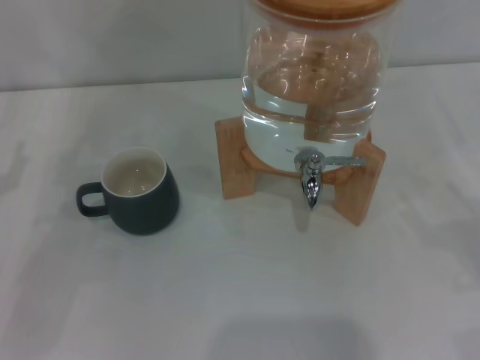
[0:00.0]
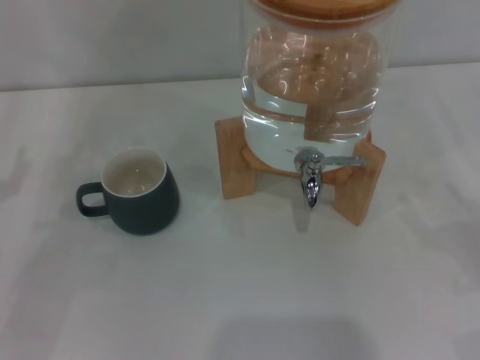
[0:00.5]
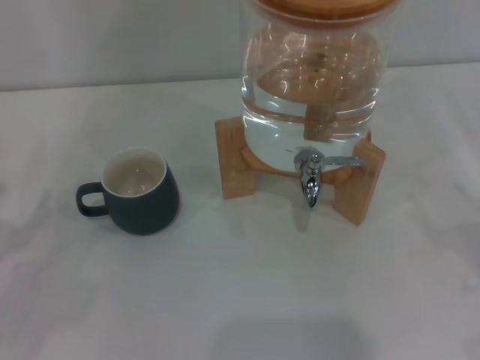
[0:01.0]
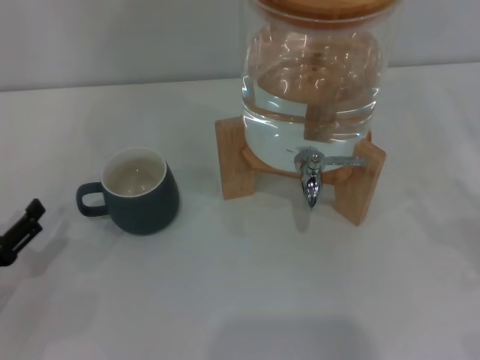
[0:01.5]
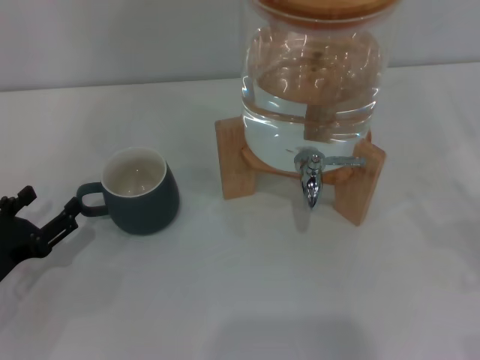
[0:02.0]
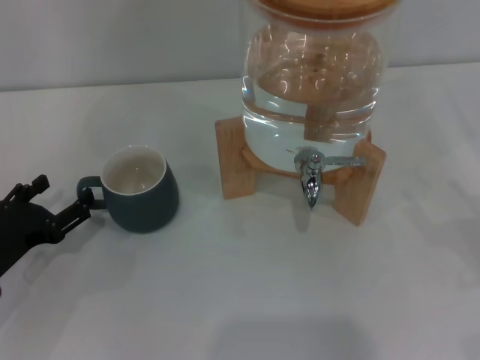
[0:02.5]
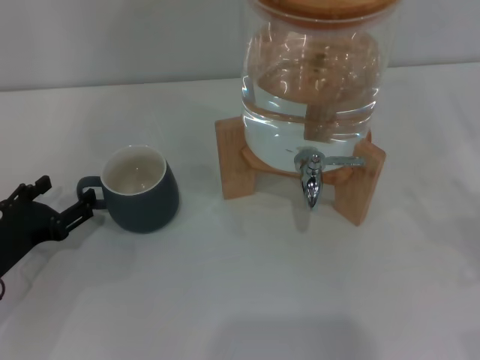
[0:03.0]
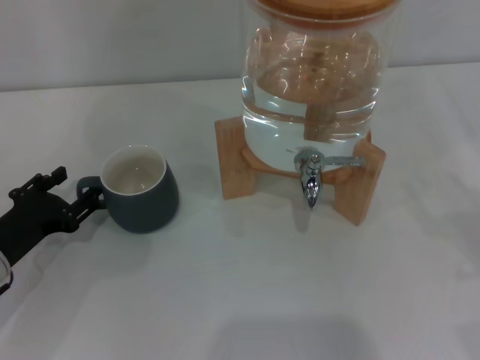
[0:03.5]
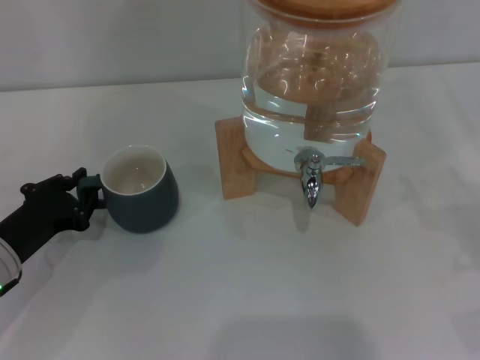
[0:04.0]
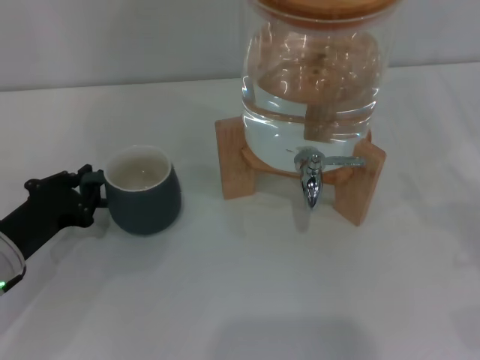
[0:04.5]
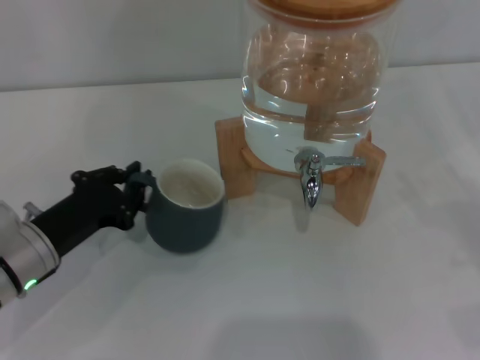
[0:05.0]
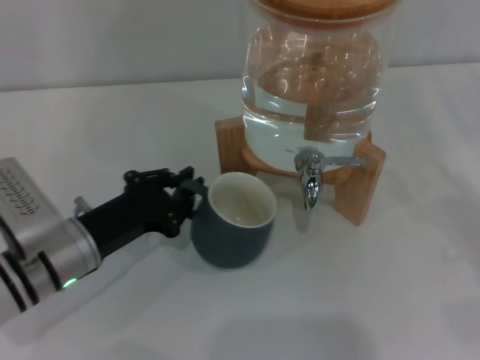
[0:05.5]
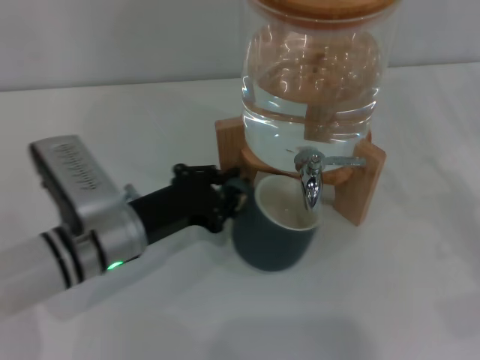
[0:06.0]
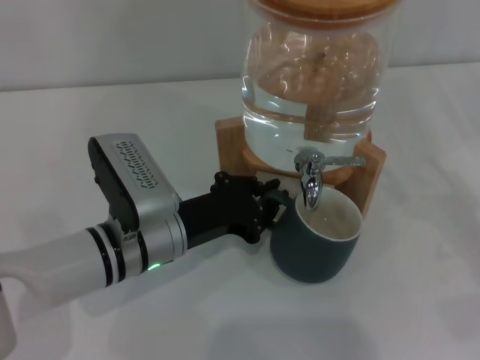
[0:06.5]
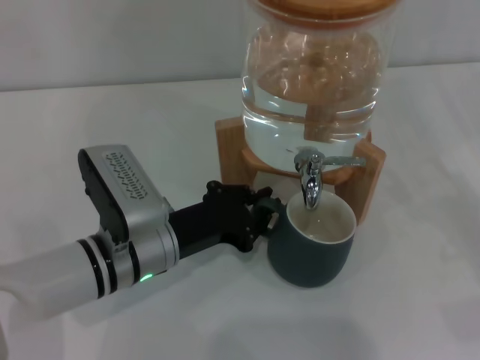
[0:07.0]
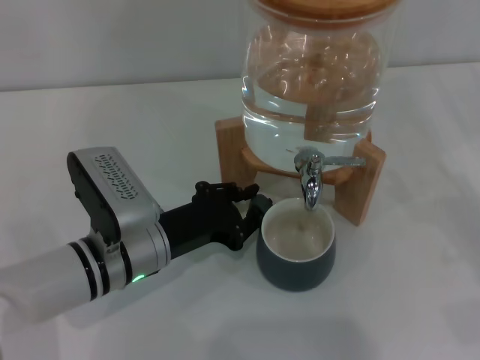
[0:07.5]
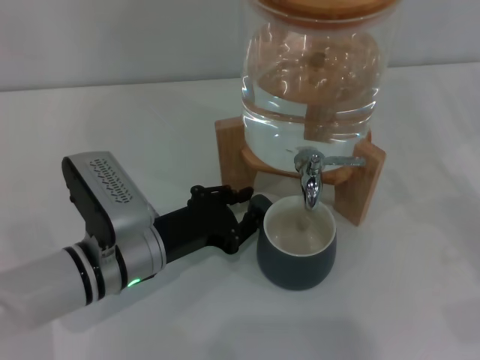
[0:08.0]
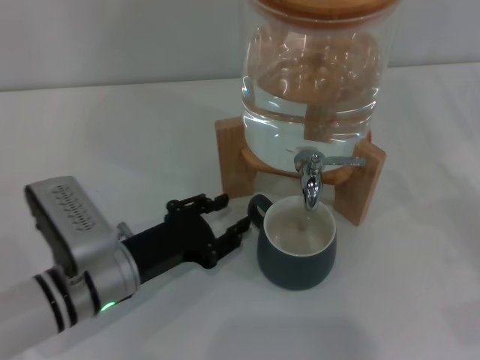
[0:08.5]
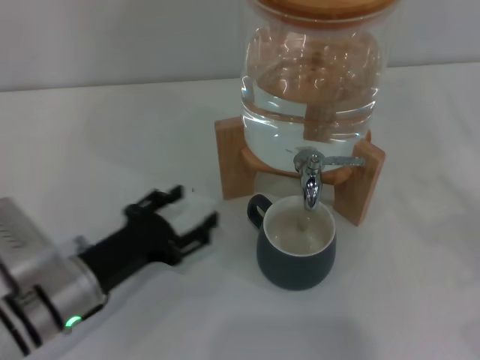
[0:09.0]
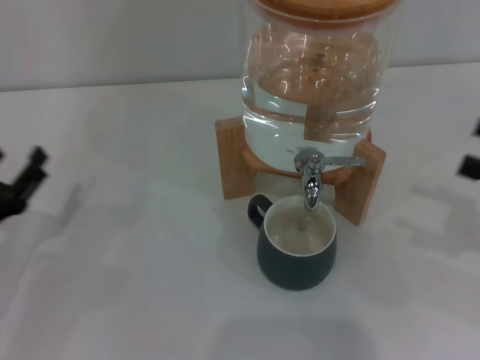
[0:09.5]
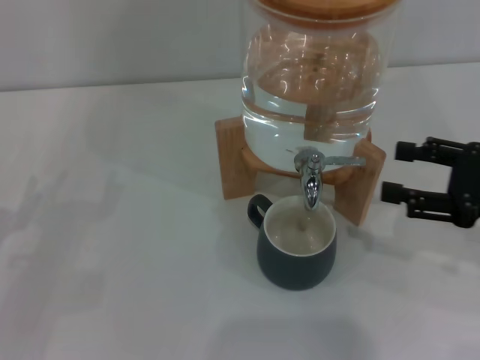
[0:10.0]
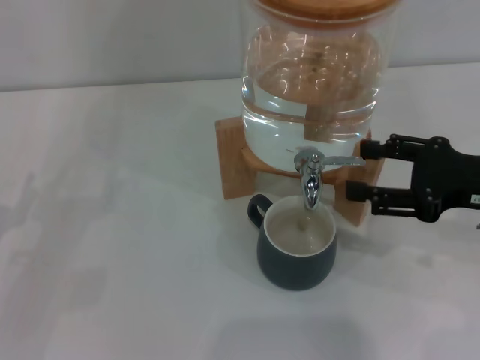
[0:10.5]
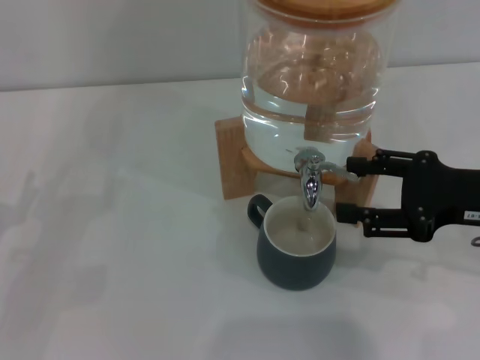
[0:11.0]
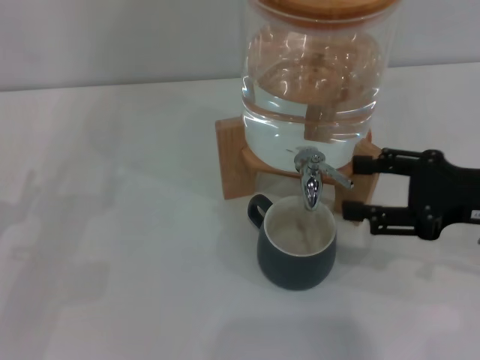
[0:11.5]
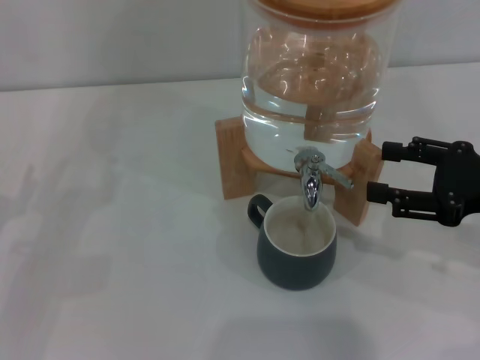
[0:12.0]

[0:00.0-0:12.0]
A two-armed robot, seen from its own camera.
Task of the whole recording: the left gripper pick up the black cup and place it horizontally under the faucet, the right gripper turn on the faucet to fill the cup, and then turn off the faucet.
Step, 0:00.0 to 0:08.5: Move the cup beneath the water dispenser nozzle with the left gripper.
Step, 0:09.0 to 0:11.0: Open the dispenser valve and fill the cup with water with the right gripper.
0:00.0 to 0:02.0: The left gripper is displaced downward by some 5 cm.
0:02.0 to 0:04.0: The left gripper shifts by approximately 5 cm, and closes its fingers.
0:04.0 to 0:06.0: The left gripper is displaced to the right by approximately 10 cm.
0:06.0 to 0:08.0: The grippers stay close to where they were, moving slightly.
0:08.0 to 0:10.0: The left gripper heads to the left, covering roughly 20 cm, and opens its fingers. Meanwhile the right gripper shifts roughly 10 cm to the left, upward and forward.
0:10.0 to 0:12.0: The grippers stay close to where they were, moving slightly.

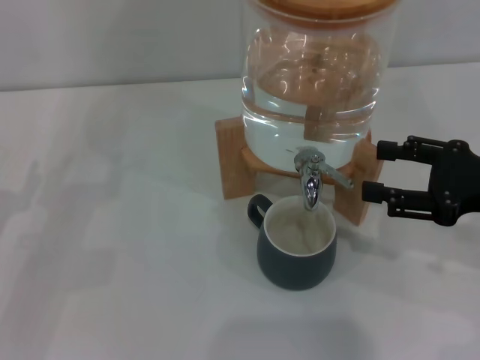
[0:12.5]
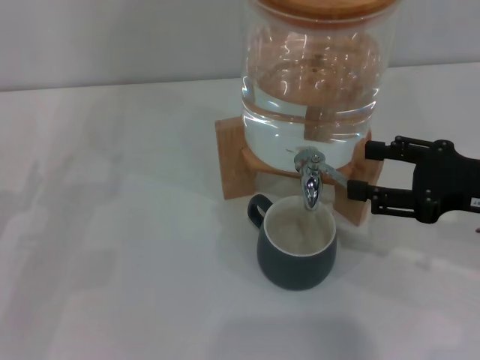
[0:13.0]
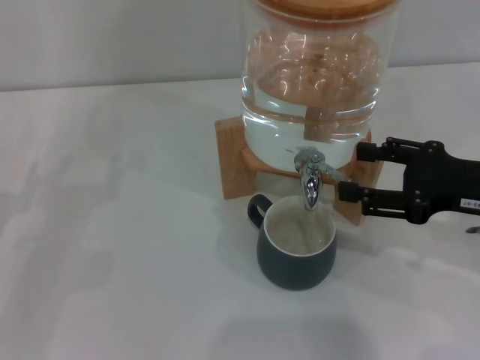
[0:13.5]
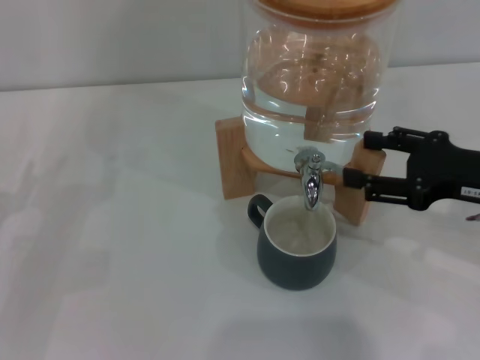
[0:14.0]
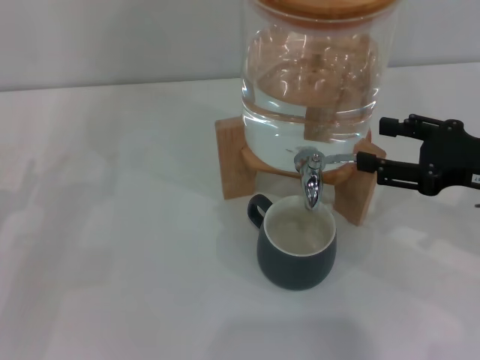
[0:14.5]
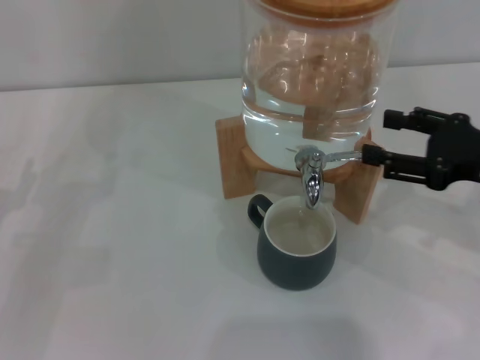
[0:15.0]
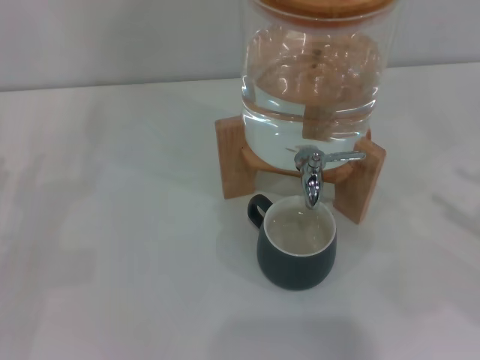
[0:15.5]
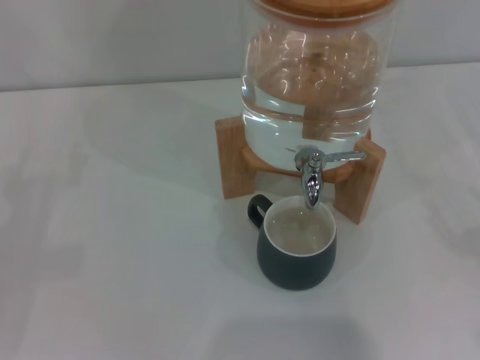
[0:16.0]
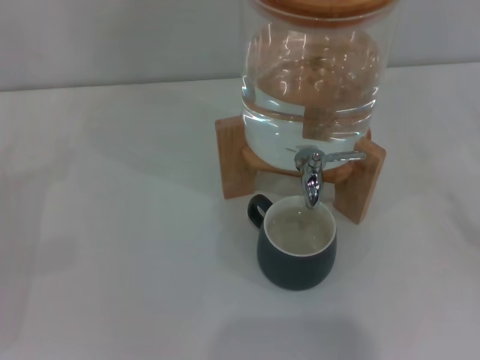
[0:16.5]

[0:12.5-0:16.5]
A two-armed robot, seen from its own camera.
Task of the whole recording: the left gripper pick up the black cup and place it horizontally under the faucet, the right gripper turn on the faucet to fill the cup, and then turn off the faucet.
Step, 0:12.5 to 0:14.5: Close the dispenser valve with the right gripper.
0:12.5 to 0:14.5: The grippers move only a little.
0:14.5 to 0:16.5: The right gripper heads to the right, backward and downward, covering roughly 20 cm, while the left gripper is displaced to the left by roughly 5 cm.

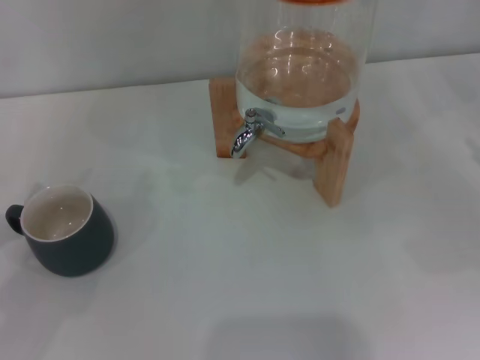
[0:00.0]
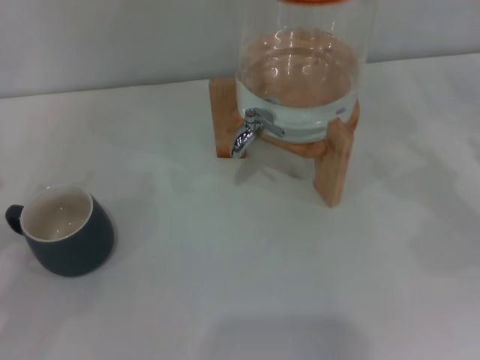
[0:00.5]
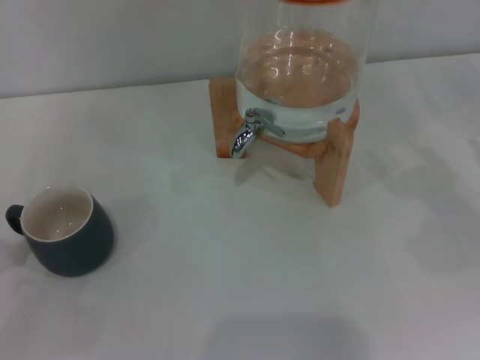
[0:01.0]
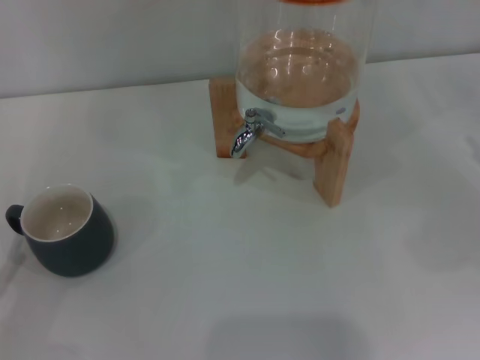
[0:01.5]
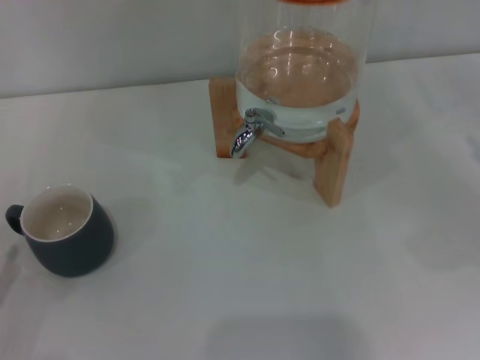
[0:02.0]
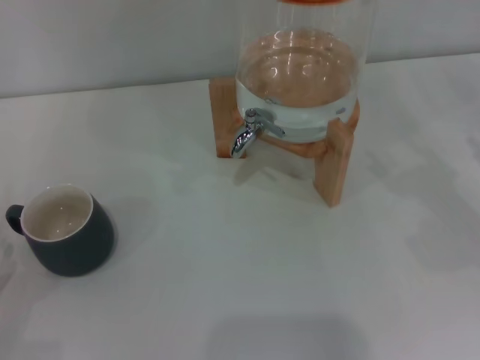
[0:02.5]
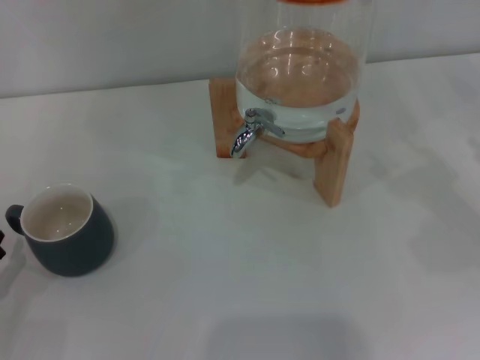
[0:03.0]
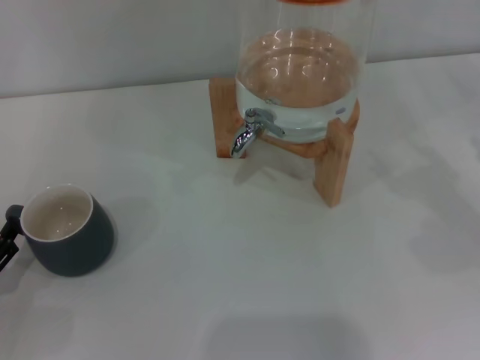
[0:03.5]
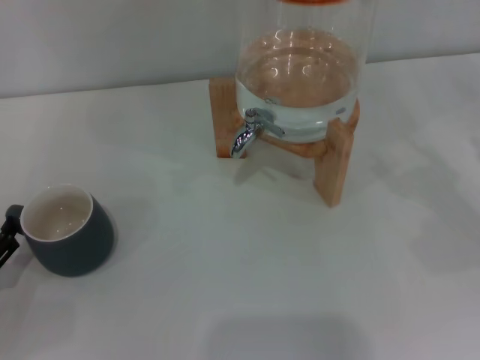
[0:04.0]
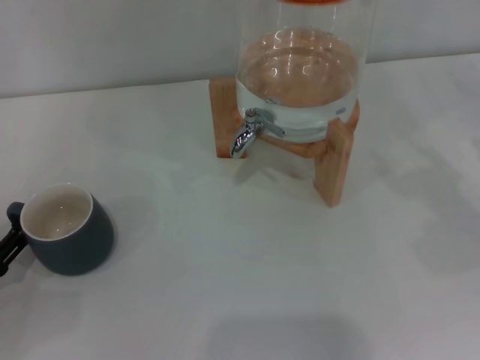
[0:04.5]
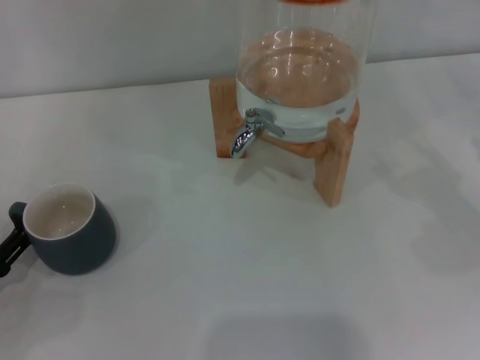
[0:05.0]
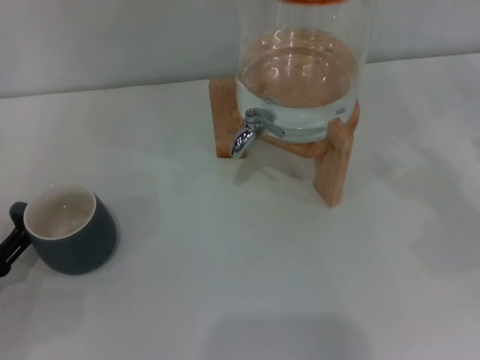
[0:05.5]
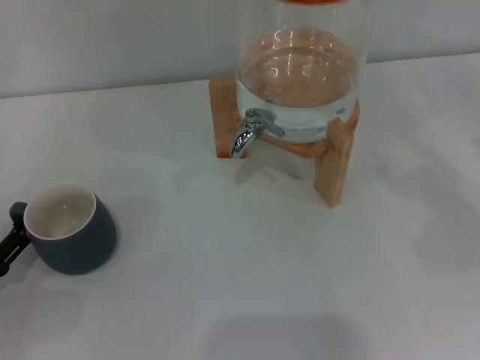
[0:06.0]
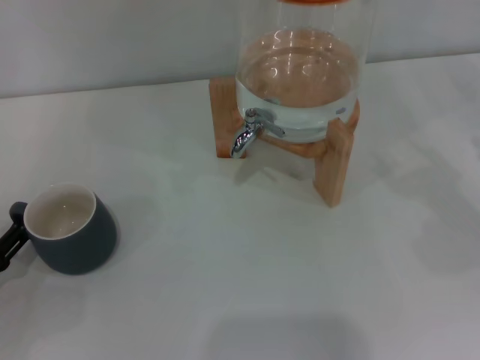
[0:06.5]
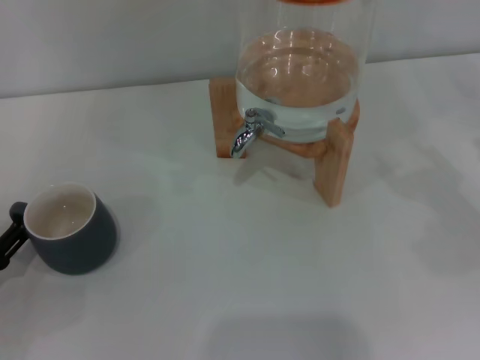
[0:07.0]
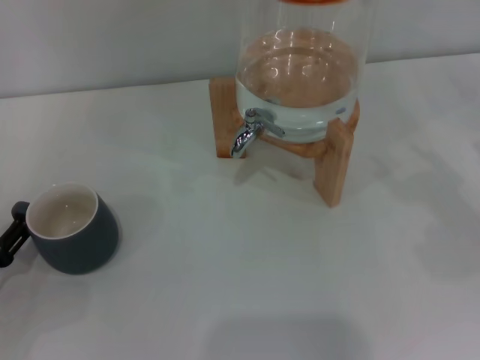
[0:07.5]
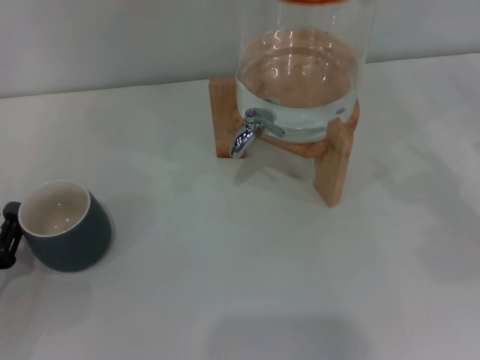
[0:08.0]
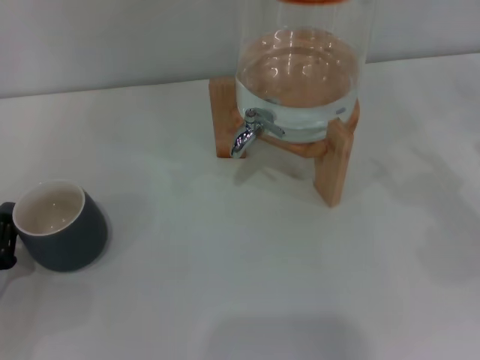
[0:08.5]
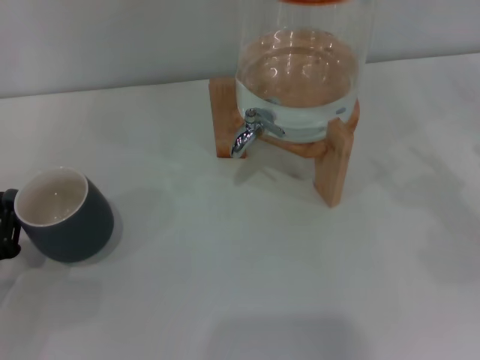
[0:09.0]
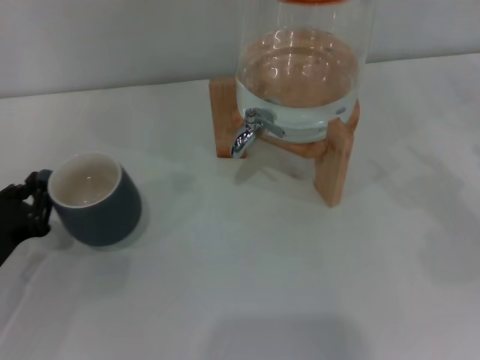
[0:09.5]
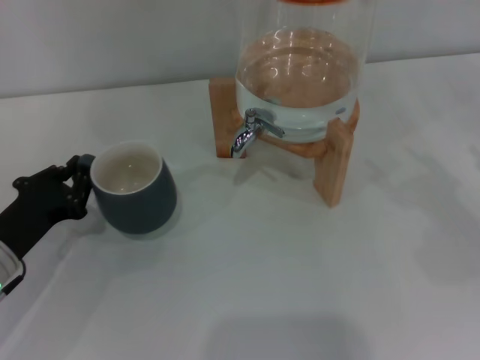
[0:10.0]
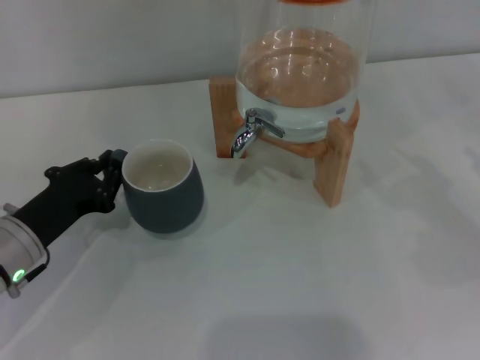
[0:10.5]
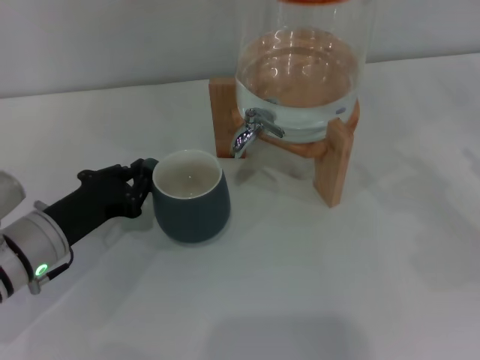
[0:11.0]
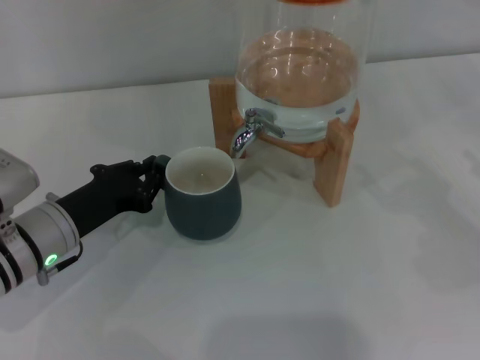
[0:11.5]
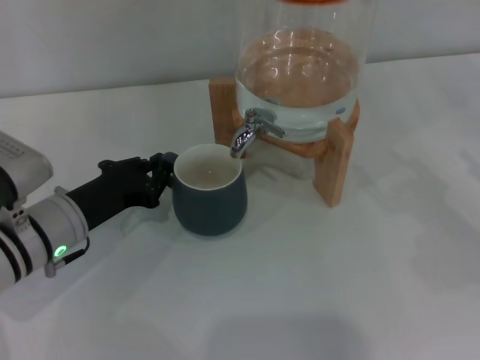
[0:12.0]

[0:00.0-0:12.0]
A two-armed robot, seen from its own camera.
Task of the whole recording: the left gripper pick up the black cup and place it horizontally under the faucet, the right gripper turn on the faucet to fill the cup, and then turn off the faucet.
0:04.0 to 0:06.0: Neither gripper changes place.
0:06.0 to 0:08.0: The left gripper closes.
0:08.0 to 0:10.0: The left gripper moves to the right and forward, roughly 10 cm, and closes its fingers.
0:10.0 to 0:12.0: The left gripper shifts approximately 5 cm to the right.
